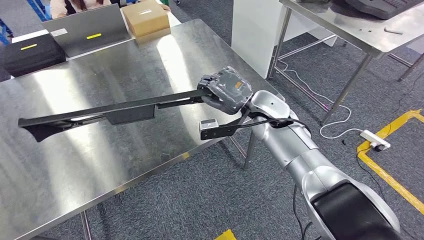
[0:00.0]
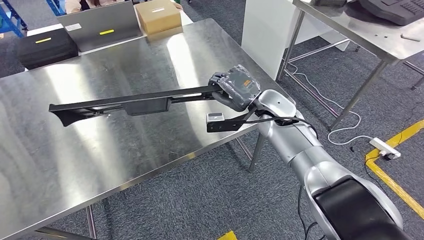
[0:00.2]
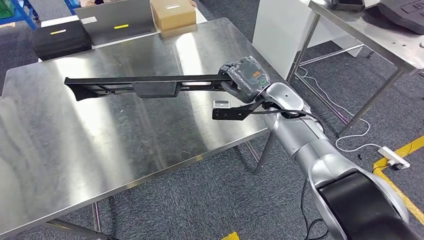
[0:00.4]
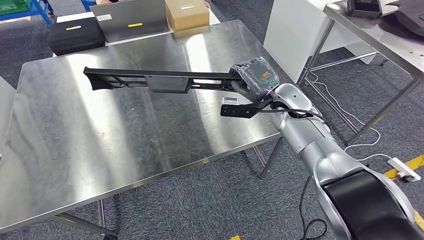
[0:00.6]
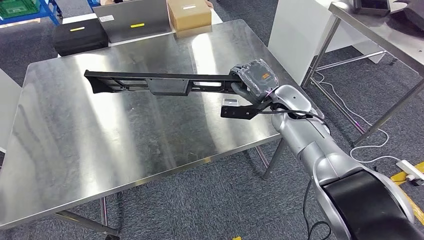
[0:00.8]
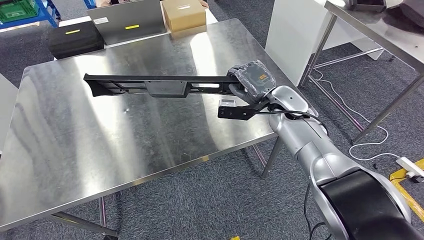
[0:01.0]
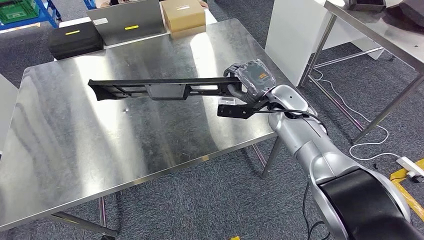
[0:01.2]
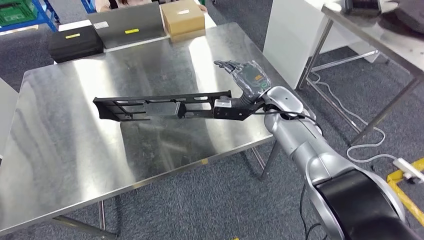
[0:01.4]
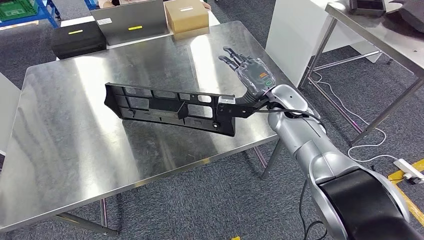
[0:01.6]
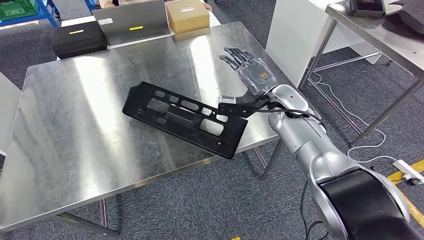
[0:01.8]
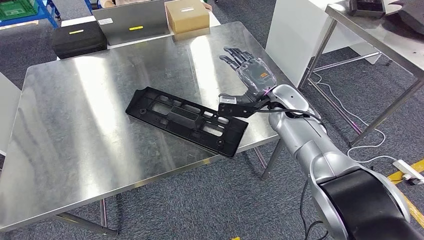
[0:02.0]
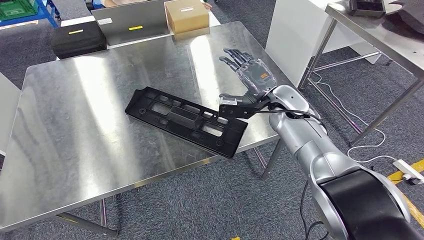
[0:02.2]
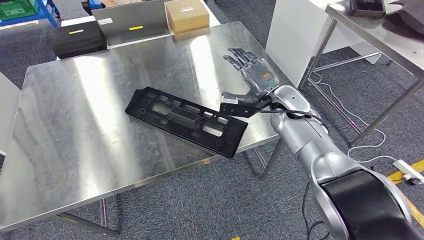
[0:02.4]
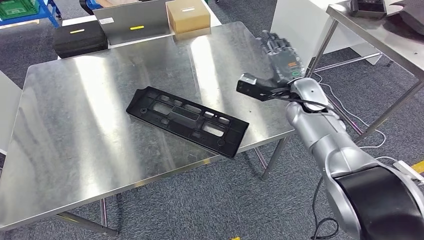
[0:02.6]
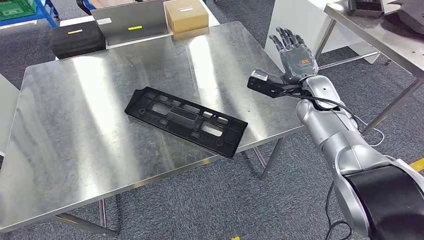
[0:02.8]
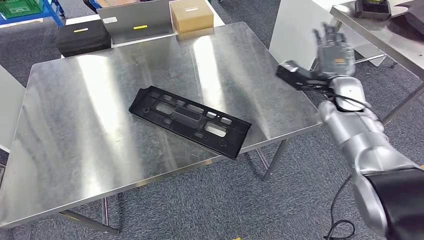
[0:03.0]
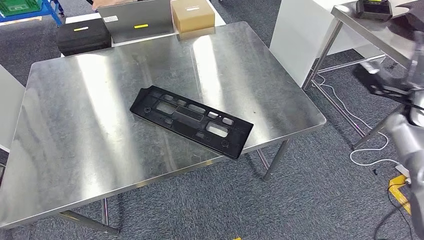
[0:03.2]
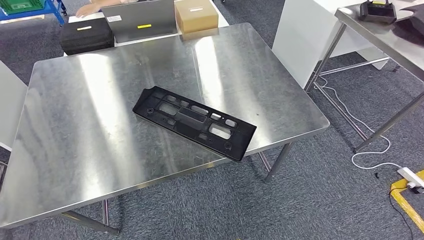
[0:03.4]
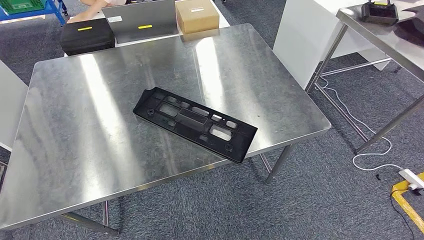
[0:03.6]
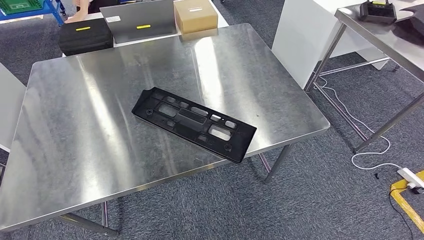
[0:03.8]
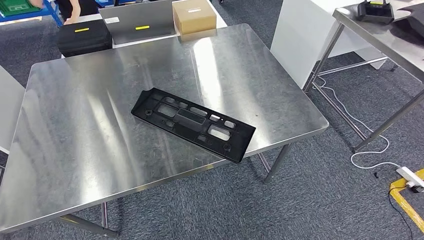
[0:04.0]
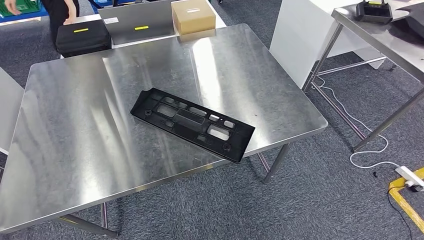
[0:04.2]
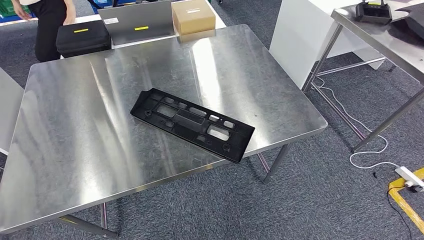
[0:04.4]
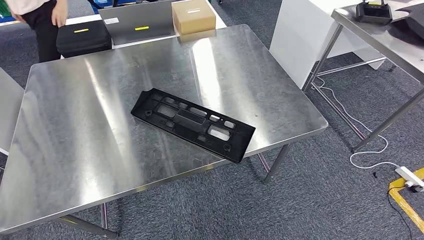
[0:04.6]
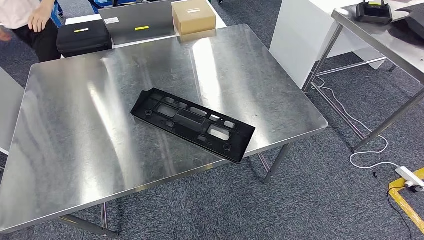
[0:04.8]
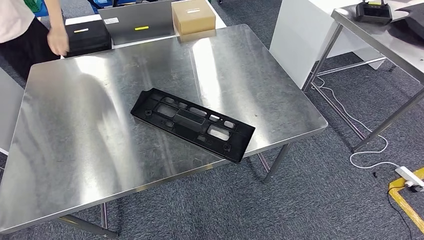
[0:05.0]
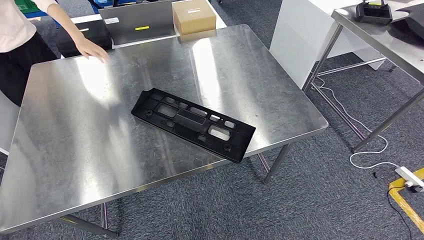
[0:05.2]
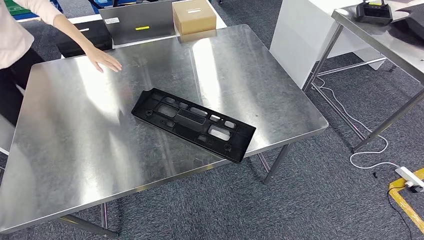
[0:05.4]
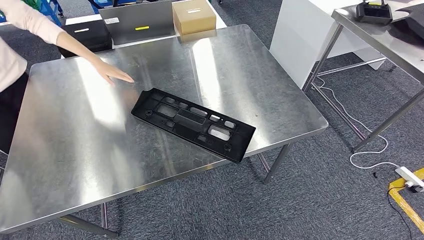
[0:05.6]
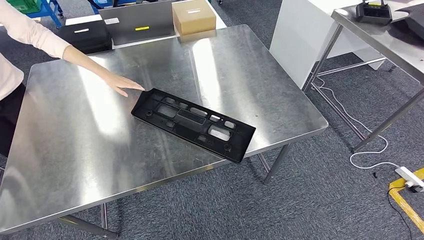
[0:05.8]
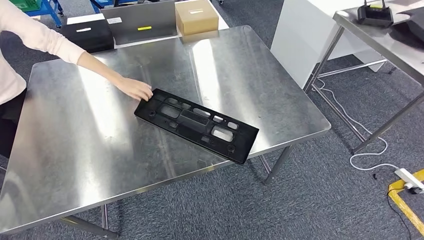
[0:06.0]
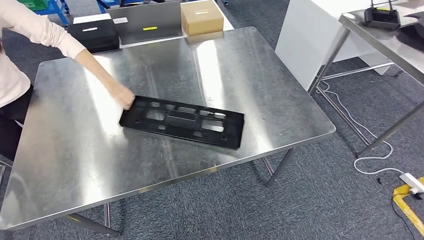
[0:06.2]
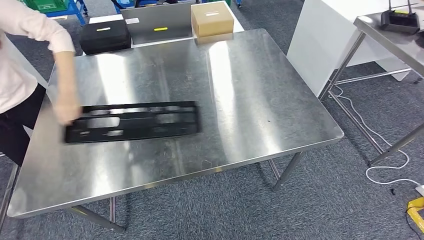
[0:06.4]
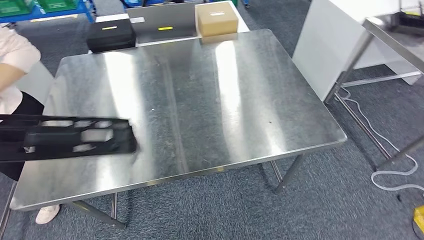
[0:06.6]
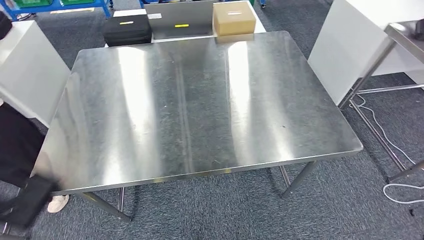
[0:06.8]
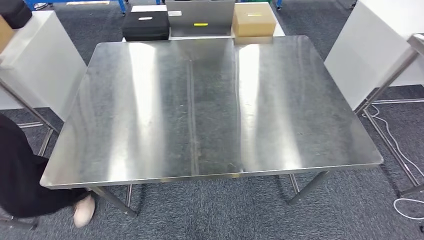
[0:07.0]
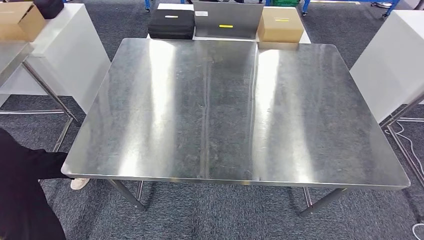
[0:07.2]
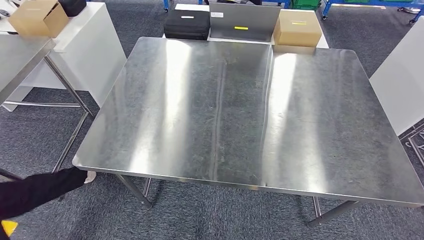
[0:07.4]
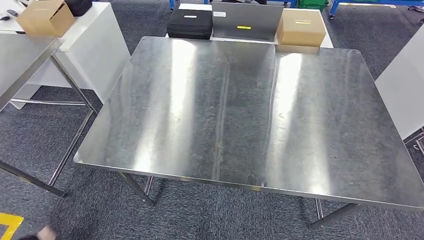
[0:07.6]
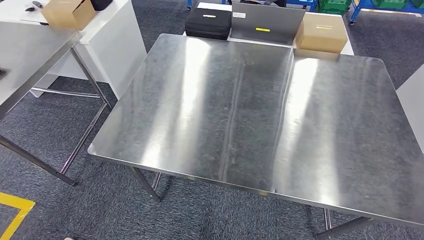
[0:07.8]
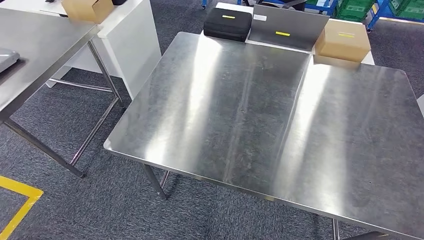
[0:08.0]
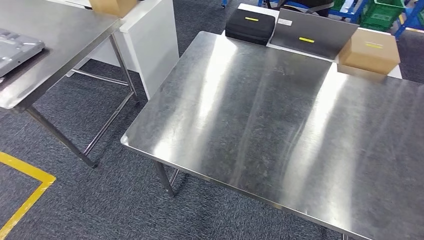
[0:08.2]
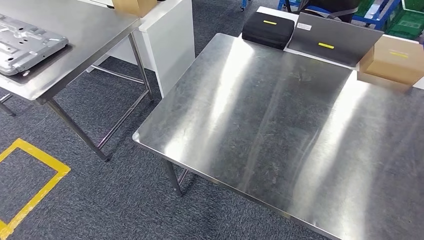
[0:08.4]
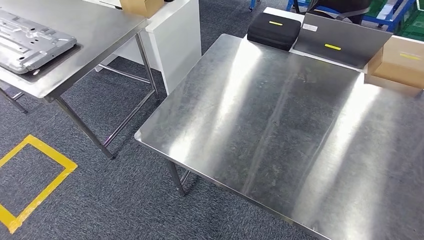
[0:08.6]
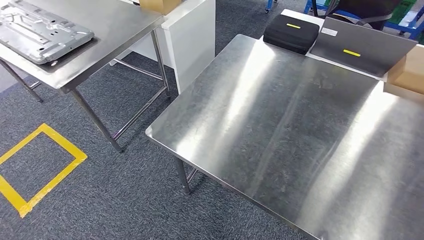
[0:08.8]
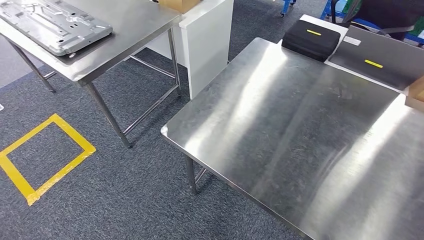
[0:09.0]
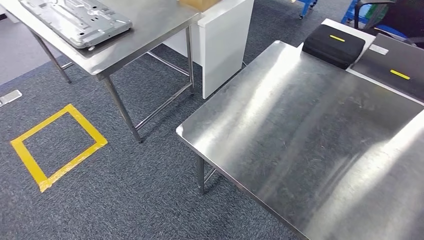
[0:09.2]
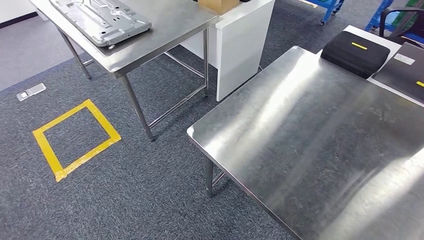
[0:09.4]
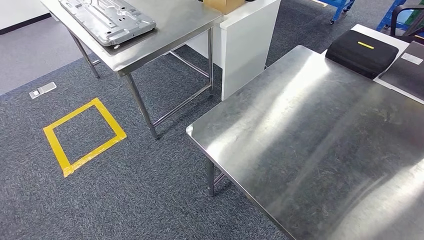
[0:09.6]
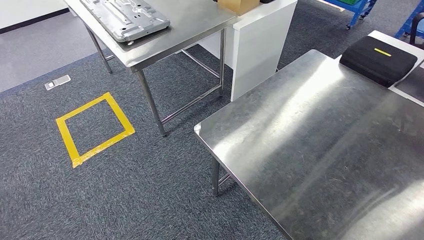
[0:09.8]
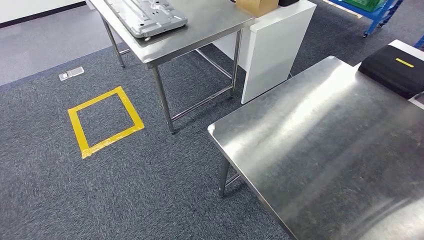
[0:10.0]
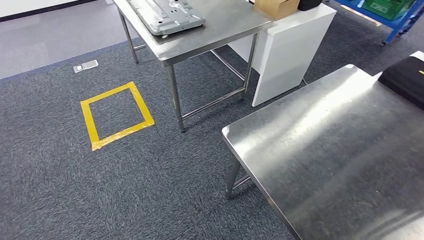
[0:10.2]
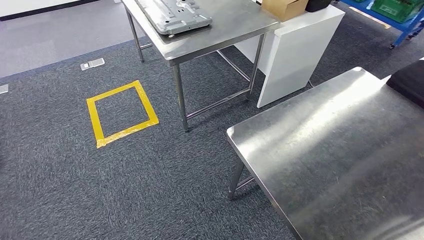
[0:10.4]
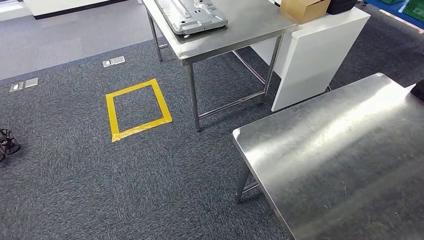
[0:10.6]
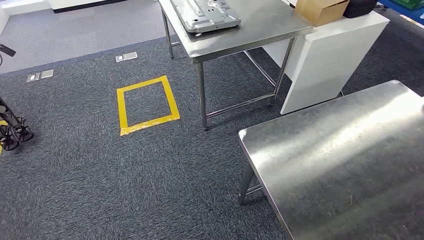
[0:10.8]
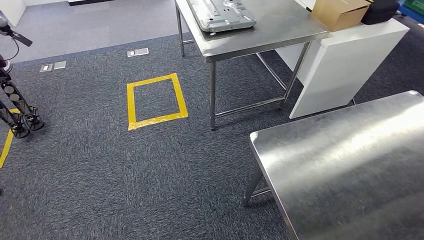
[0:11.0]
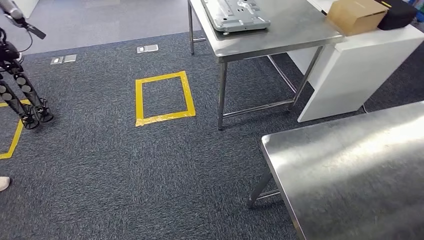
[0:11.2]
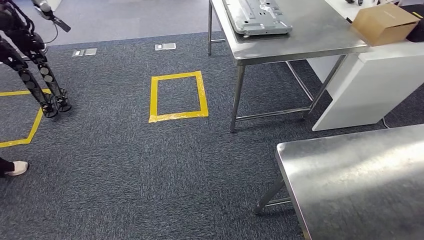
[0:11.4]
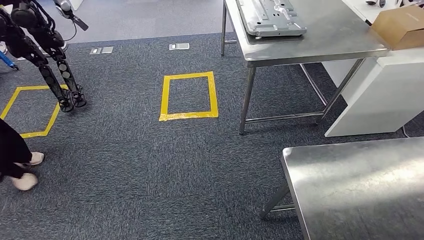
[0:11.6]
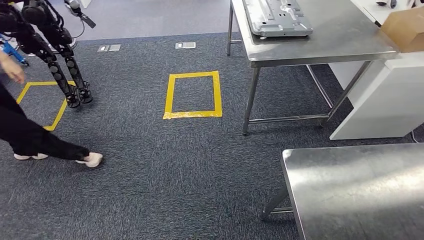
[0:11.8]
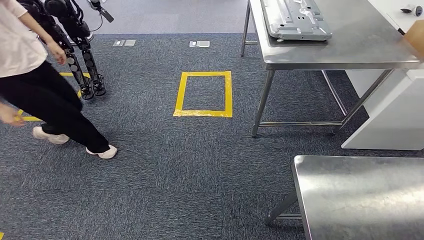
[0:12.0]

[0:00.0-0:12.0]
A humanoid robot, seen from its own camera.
Step, 0:00.0 to 0:05.2: Insert the large material into the corresponding slot on the workbench.

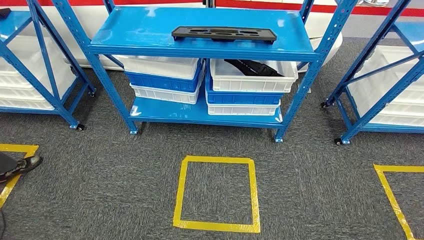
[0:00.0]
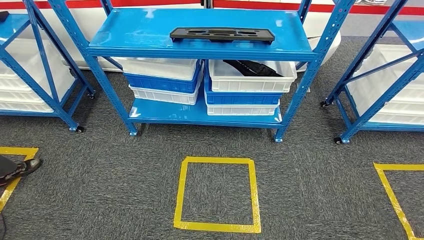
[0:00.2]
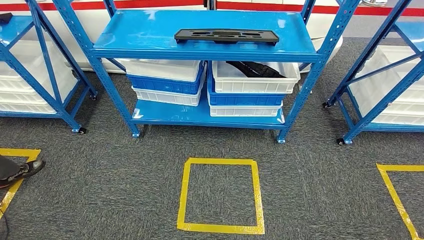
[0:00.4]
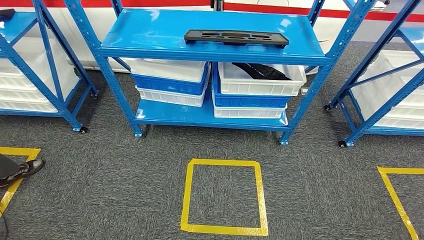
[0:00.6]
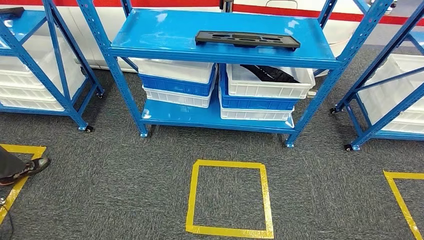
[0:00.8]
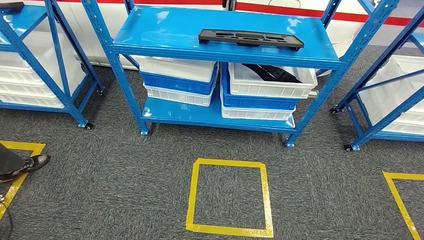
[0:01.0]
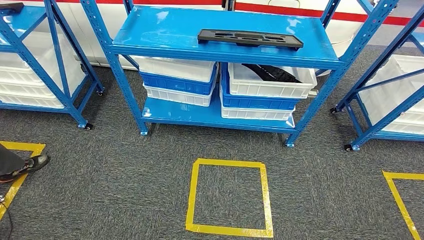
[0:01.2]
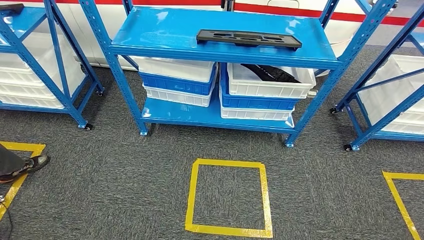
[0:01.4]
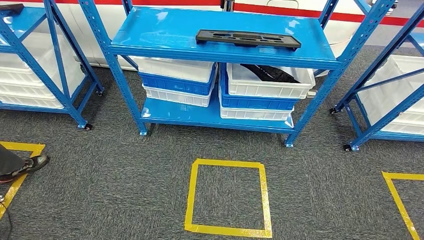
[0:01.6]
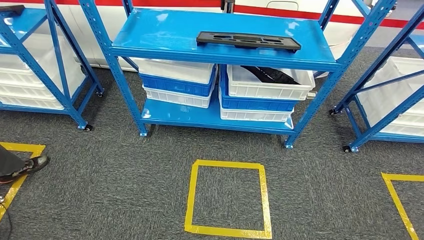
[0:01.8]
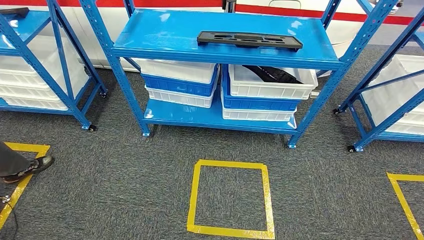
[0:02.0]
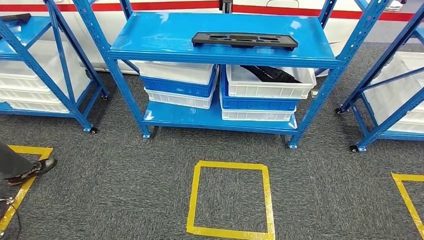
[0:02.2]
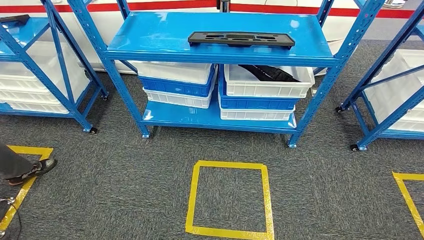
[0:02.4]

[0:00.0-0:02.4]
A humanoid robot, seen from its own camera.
Step, 0:00.0 to 0:02.4: Move to the initial position of the shelf.

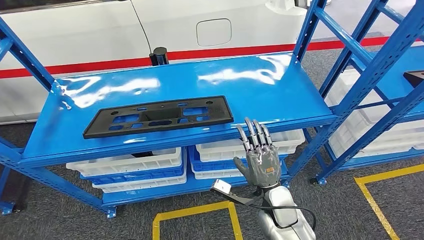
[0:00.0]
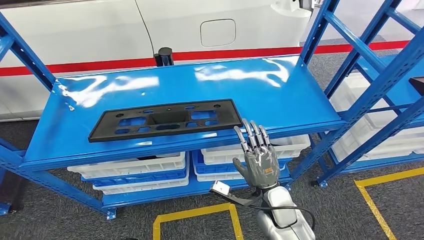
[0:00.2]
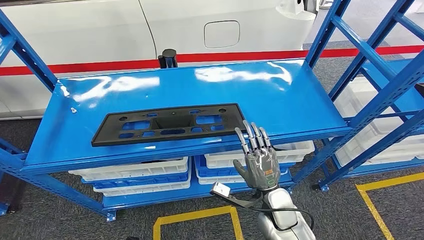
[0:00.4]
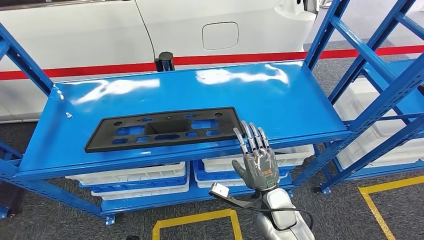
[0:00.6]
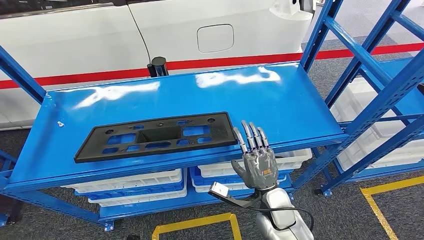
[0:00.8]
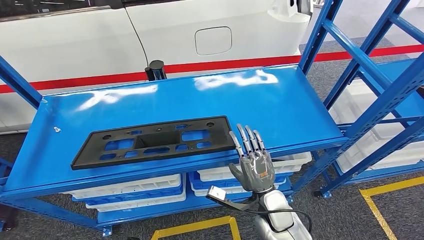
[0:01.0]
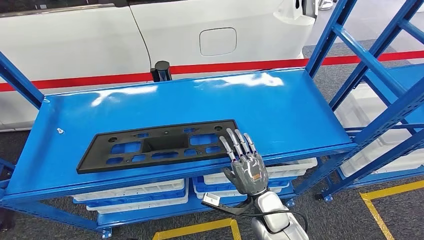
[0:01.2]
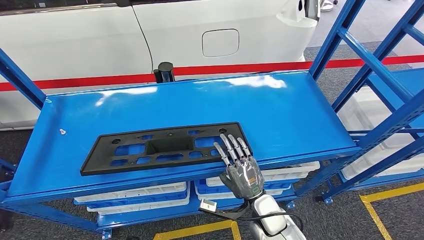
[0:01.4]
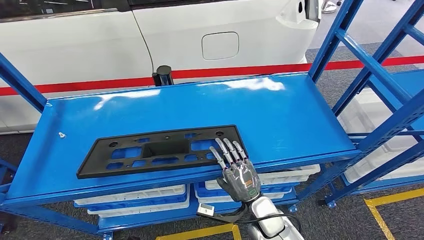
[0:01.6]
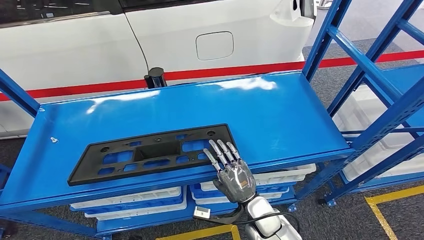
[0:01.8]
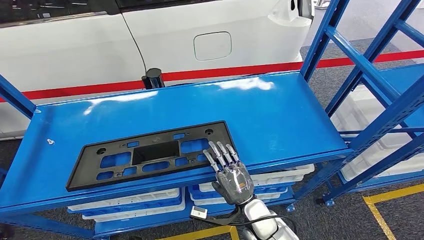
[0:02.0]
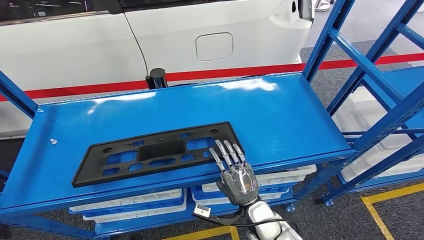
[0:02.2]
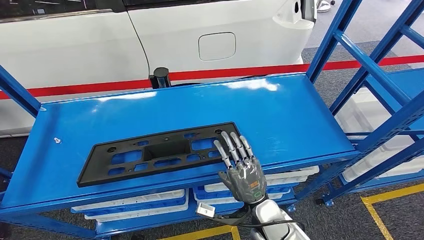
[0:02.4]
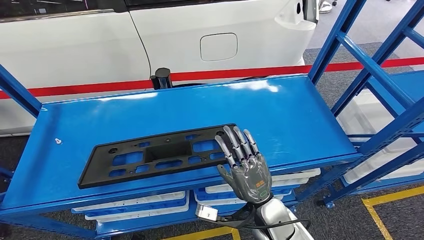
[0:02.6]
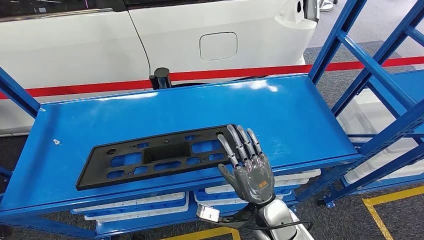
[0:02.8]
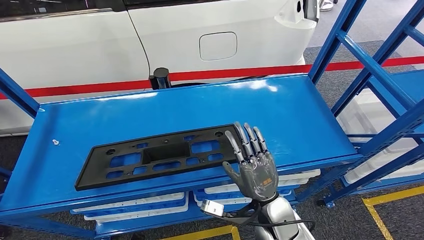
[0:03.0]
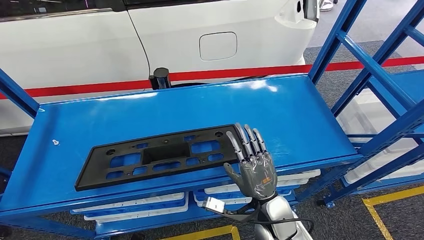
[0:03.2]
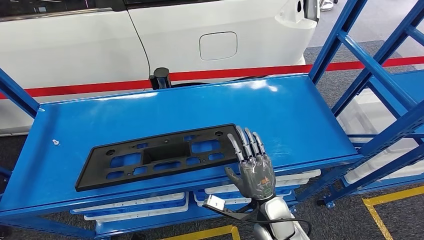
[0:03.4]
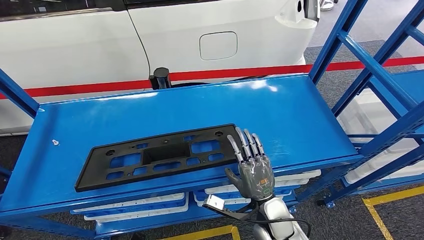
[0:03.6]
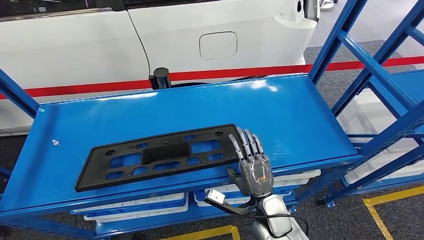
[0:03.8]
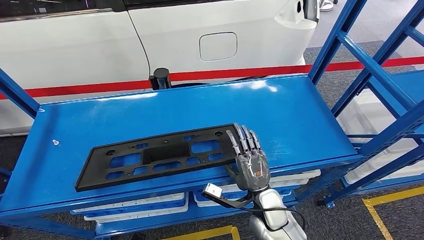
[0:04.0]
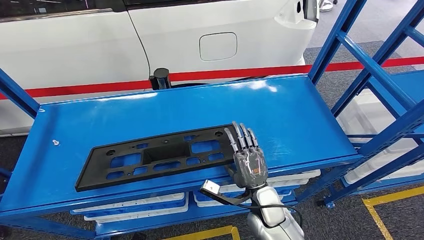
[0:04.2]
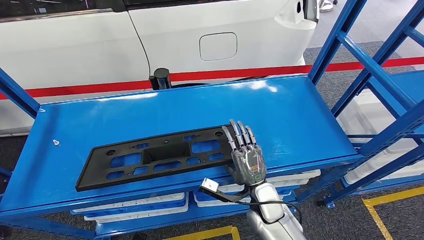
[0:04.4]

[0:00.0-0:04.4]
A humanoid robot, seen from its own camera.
0:03.0 to 0:04.4: The right hand changes place by about 5 cm.
